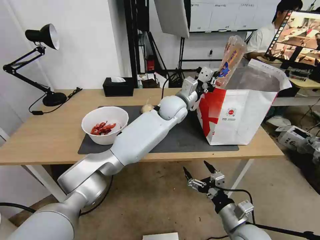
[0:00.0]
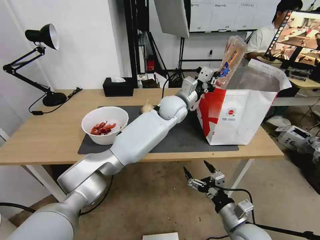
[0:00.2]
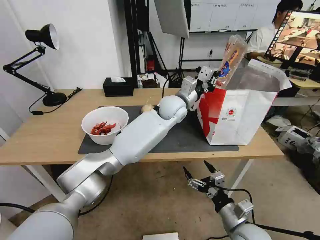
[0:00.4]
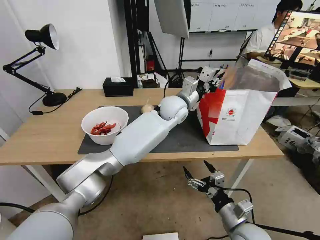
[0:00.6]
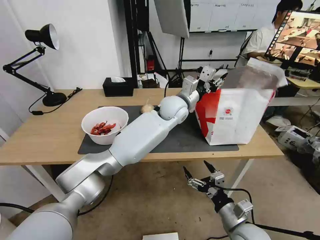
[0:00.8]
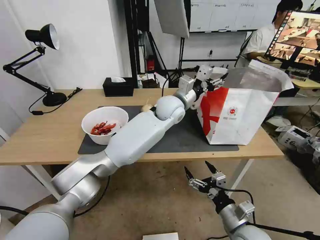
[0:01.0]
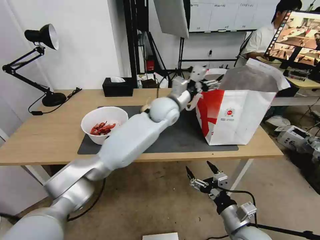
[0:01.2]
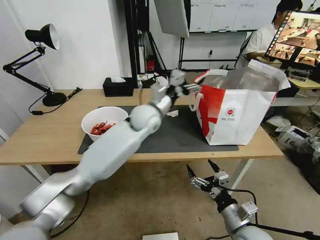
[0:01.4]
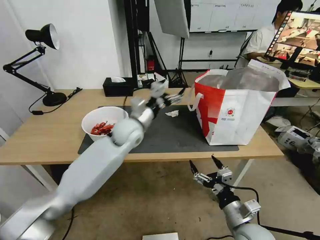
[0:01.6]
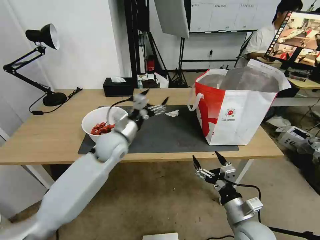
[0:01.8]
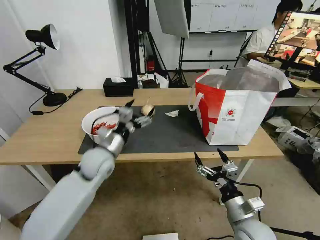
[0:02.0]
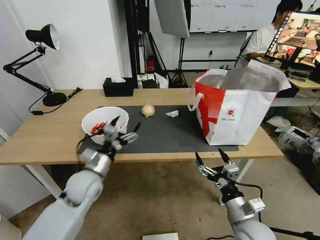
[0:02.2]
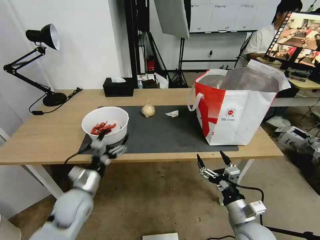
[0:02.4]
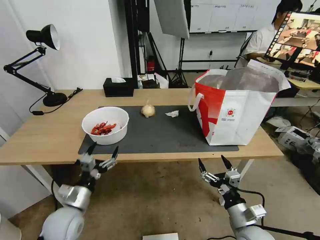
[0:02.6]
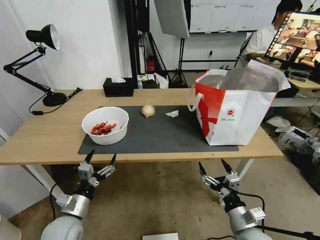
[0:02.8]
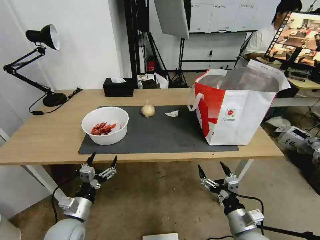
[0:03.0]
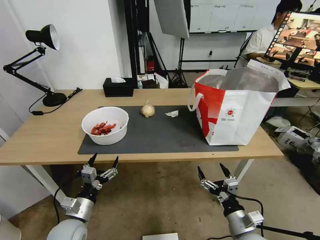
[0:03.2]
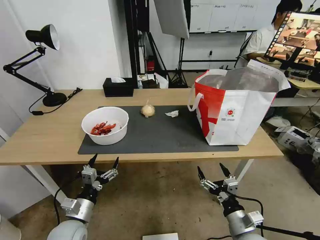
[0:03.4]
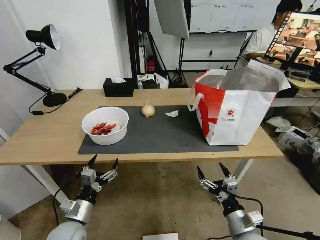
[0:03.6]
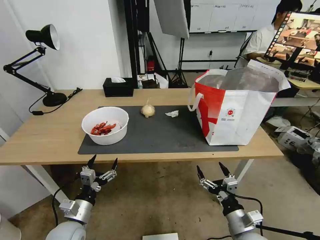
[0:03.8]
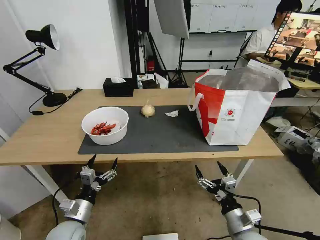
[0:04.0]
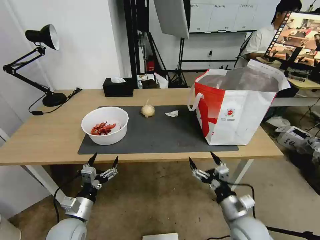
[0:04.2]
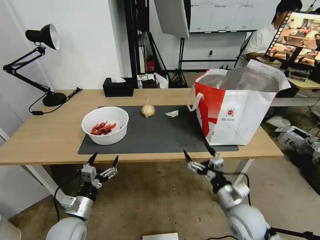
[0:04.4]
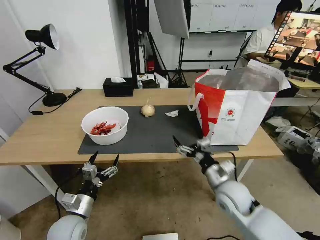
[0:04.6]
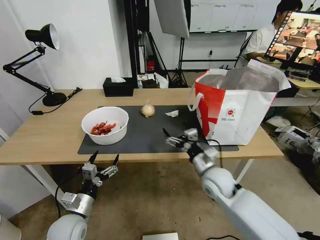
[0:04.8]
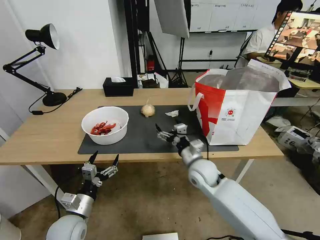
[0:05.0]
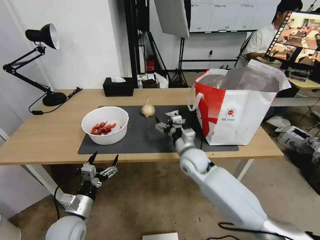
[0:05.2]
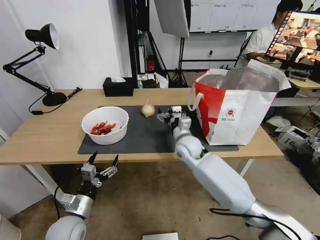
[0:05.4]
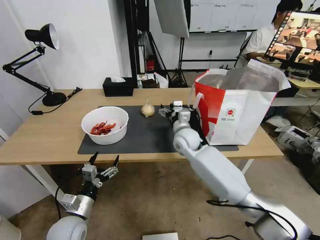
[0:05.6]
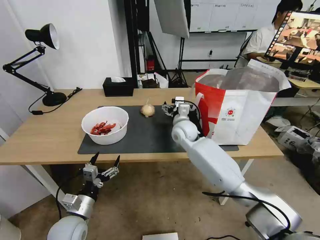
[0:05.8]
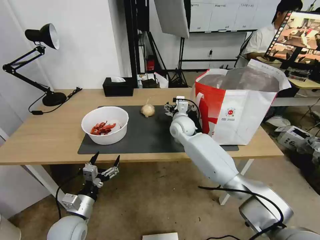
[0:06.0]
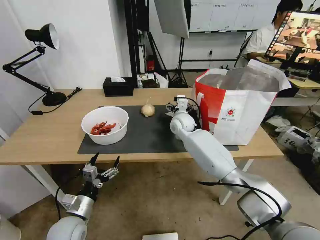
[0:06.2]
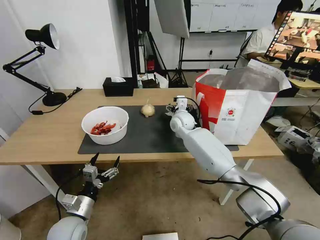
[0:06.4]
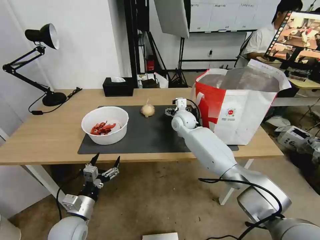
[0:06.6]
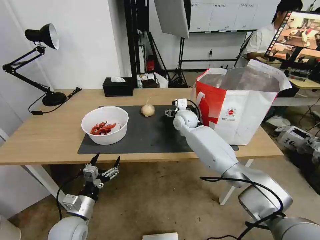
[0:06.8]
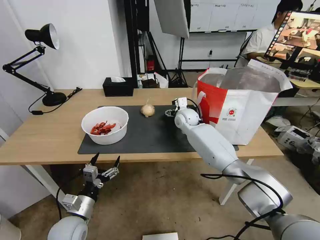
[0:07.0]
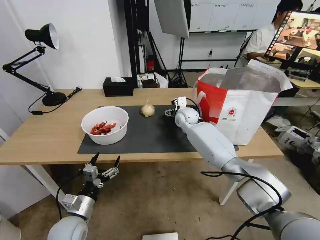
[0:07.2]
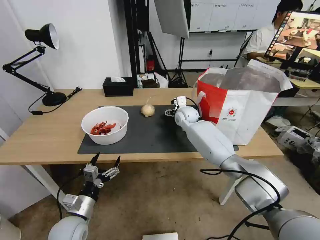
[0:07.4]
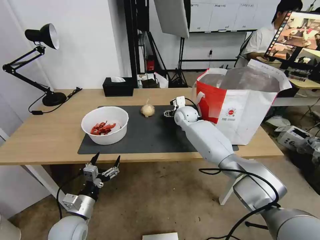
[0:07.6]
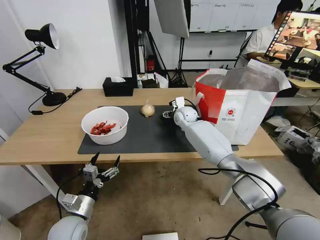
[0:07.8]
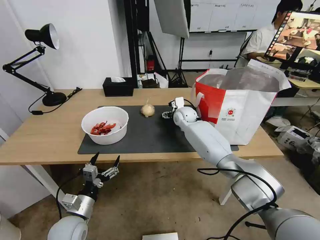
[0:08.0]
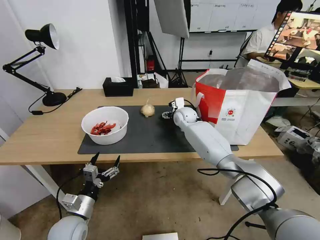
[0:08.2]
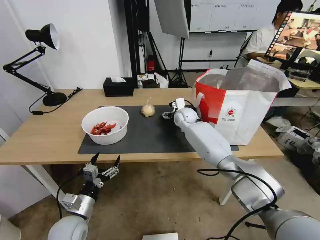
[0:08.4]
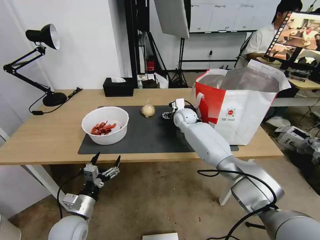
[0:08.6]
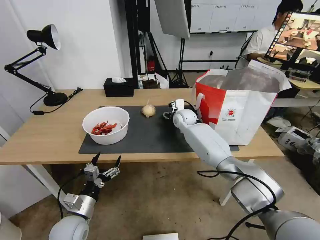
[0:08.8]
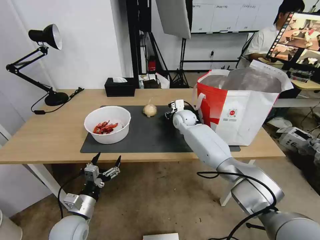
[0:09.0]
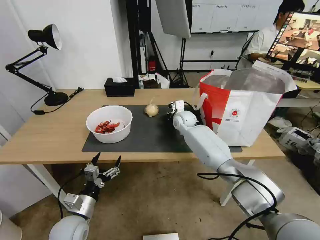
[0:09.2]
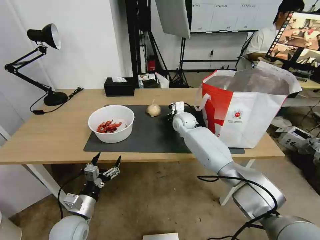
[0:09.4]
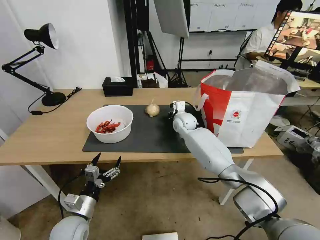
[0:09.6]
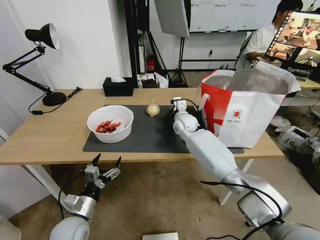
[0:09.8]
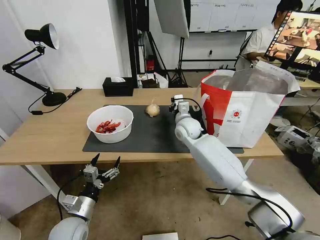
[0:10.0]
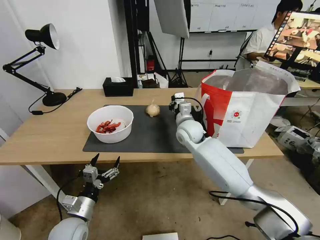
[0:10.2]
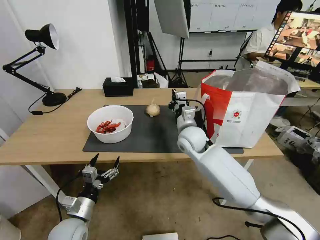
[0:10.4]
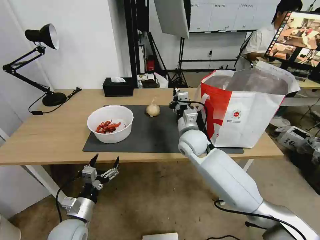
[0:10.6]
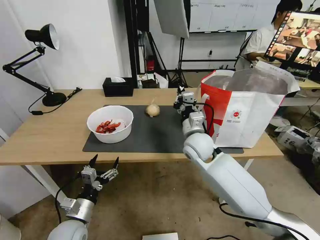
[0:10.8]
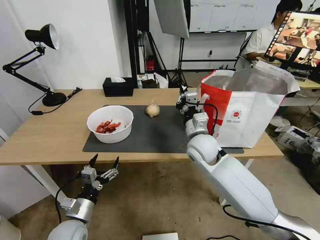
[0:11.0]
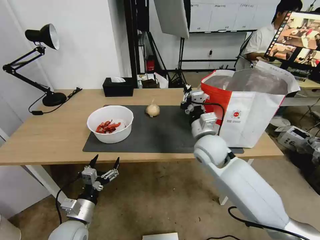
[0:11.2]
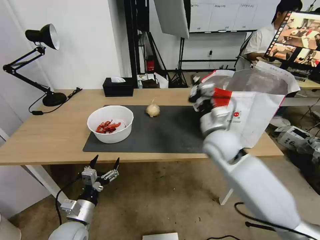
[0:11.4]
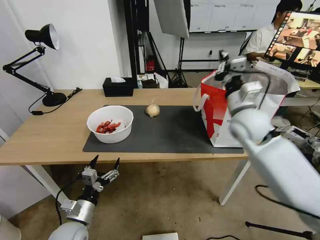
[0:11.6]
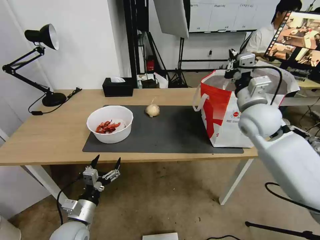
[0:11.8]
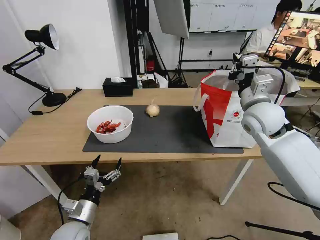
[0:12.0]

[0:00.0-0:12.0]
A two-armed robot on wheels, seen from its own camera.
Task of the whole recording: Pick up the trash from the table and place it into the takeout bag.
0:00.0 to 0:01.6: The left gripper is displaced to the left and backward by roughly 15 cm, and opens its fingers.
0:01.6 to 0:03.0: The left gripper heads backward, downward and to the left, covering approximately 35 cm.
0:03.0 to 0:04.4: The right gripper goes roughly 10 cm forward.
0:04.4 to 0:06.0: The right gripper travels forward and to the left by about 35 cm.
0:06.0 to 0:07.6: The right gripper shifts roughly 5 cm forward.
0:07.6 to 0:09.0: The right gripper closes up.
0:09.0 to 0:10.4: The right gripper is displaced backward by about 15 cm, and closes up.
0:10.4 to 0:12.0: The right gripper moves to the right and upward, roughly 20 cm.

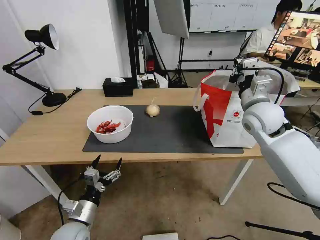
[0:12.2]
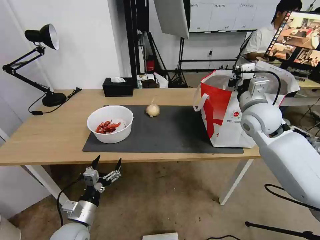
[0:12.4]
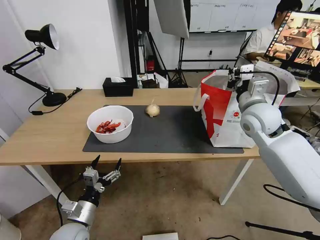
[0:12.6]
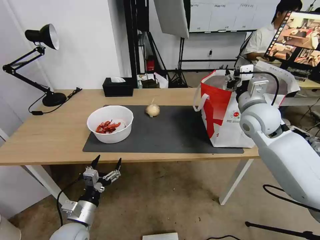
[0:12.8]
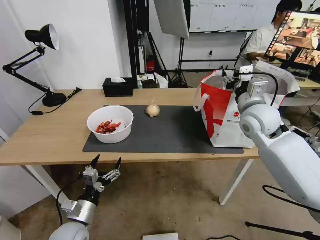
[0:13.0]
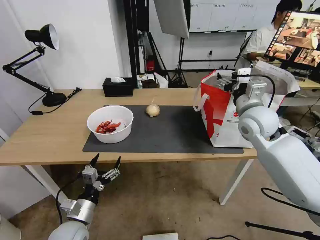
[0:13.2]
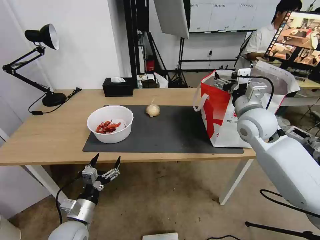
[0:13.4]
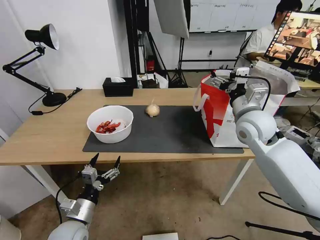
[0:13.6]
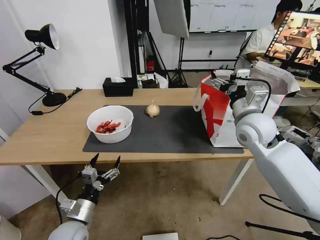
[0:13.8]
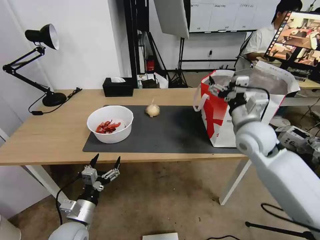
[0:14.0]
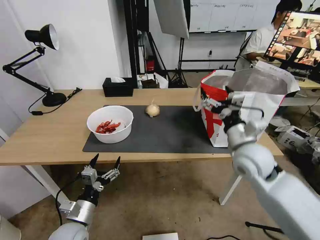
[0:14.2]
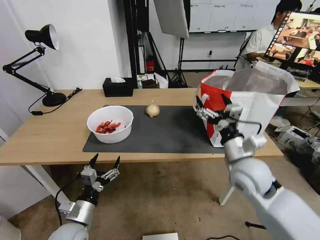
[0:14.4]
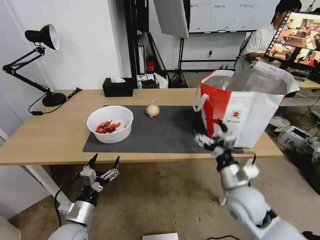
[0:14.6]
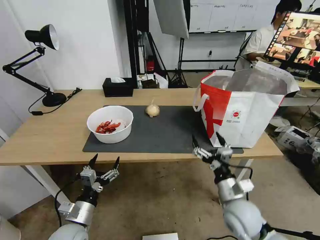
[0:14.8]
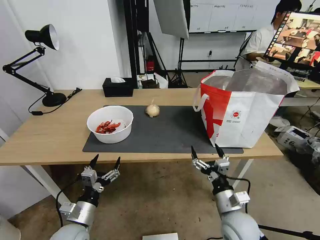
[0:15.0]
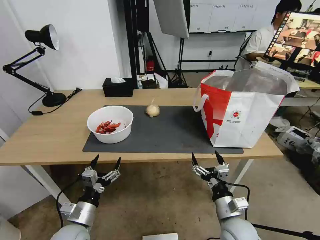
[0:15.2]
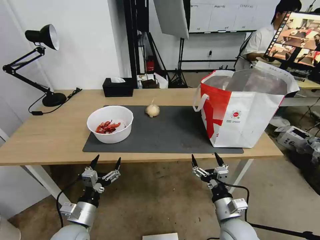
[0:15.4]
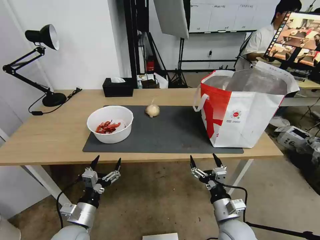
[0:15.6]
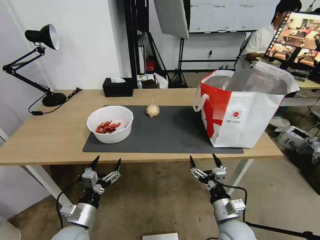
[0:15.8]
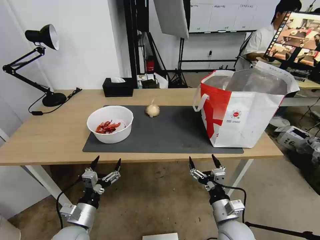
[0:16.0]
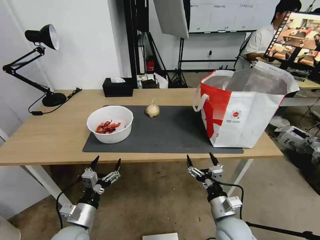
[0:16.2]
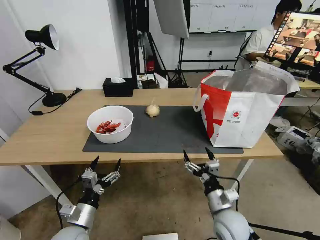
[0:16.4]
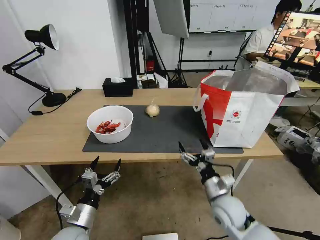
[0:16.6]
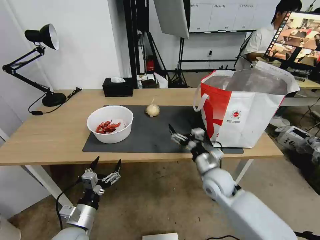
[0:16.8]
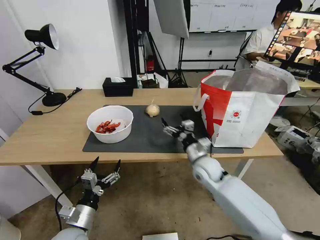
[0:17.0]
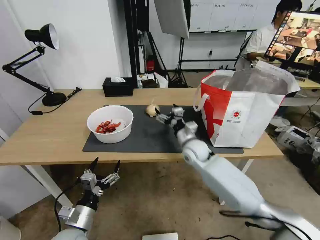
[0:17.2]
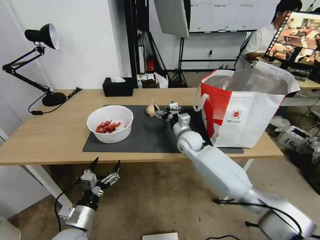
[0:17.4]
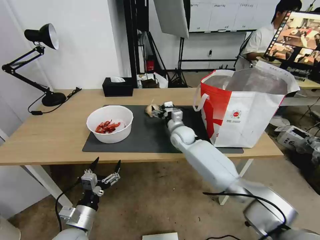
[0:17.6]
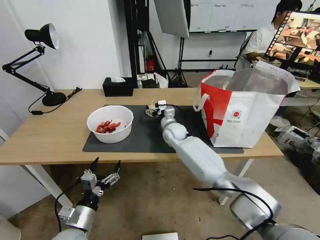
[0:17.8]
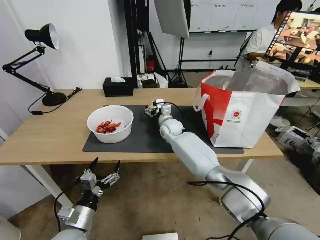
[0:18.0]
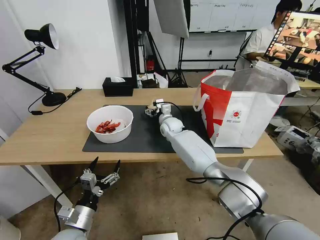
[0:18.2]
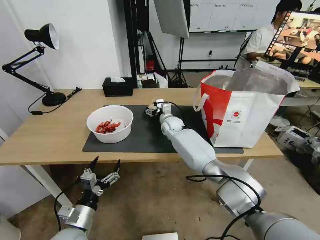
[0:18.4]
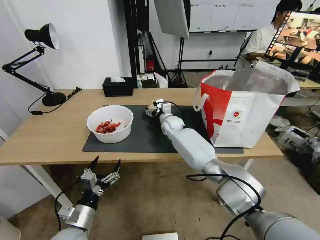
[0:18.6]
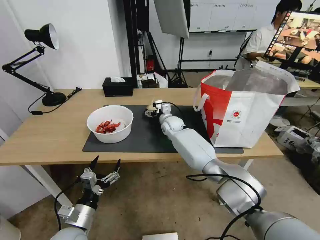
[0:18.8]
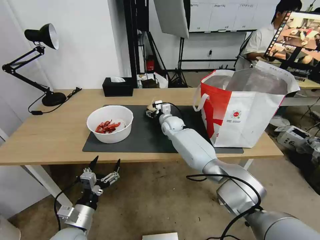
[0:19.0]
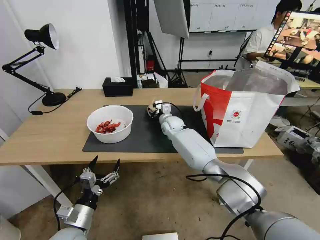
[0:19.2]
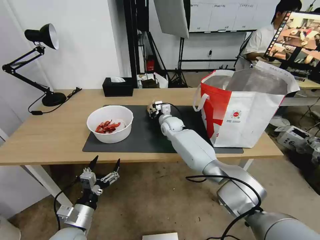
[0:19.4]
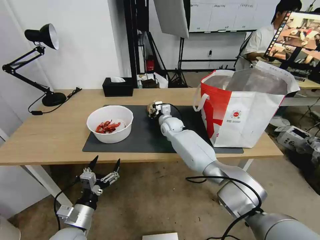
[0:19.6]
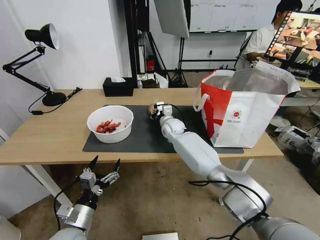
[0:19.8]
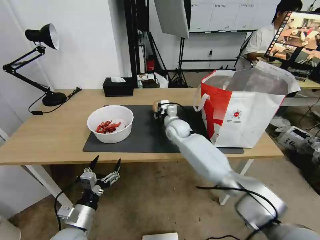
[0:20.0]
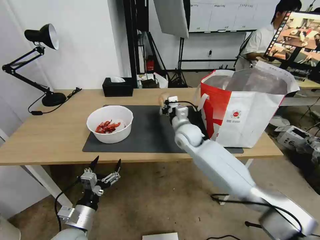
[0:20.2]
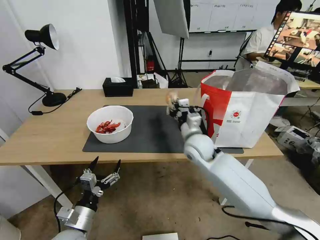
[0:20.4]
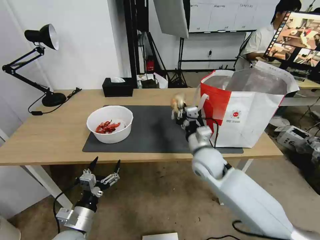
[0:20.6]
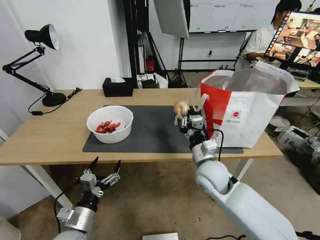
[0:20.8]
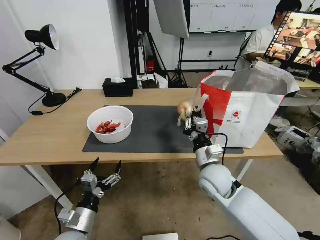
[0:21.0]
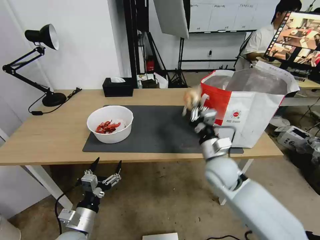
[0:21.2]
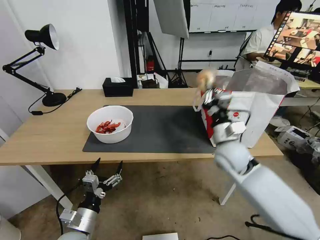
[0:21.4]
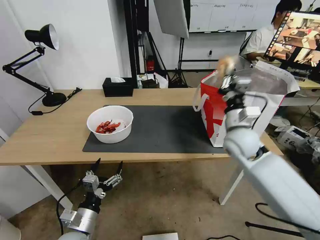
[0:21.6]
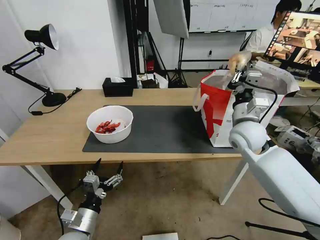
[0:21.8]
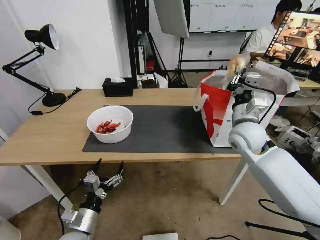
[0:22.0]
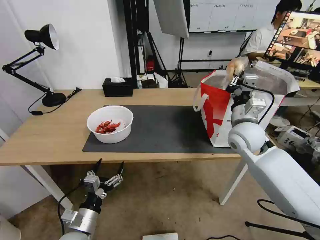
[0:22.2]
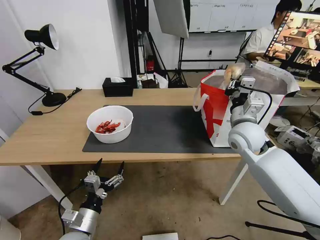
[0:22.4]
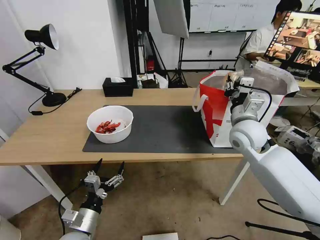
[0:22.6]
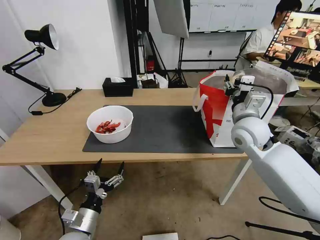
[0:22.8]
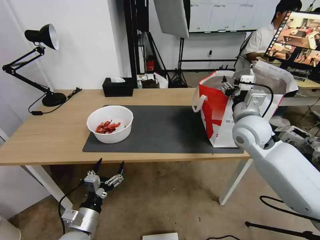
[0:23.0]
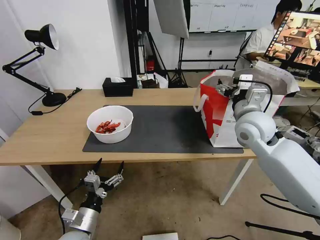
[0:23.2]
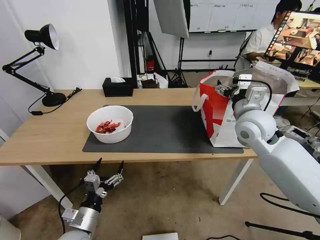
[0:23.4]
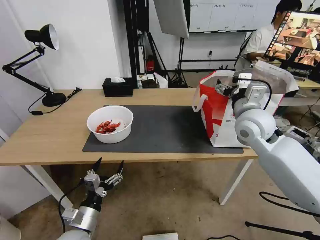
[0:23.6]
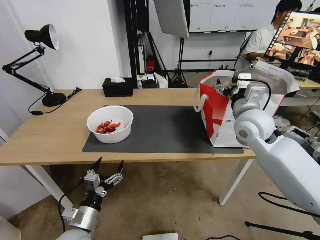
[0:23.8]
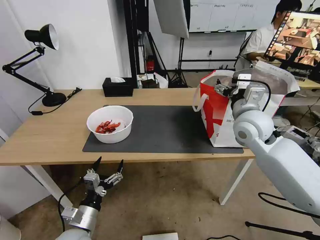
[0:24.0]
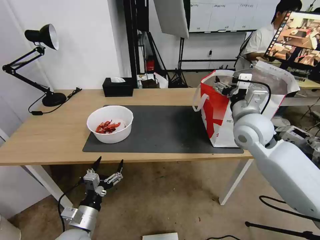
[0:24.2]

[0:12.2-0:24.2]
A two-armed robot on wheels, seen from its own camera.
Task of the whole recording: Pick up the trash from the table and place it into the takeout bag.
0:12.2 to 0:13.8: The right gripper opens its fingers.
0:13.8 to 0:15.2: The right gripper goes roughly 30 cm downward and backward.
0:15.2 to 0:16.6: The right gripper travels forward by roughly 5 cm.
0:16.6 to 0:18.2: The right gripper goes roughly 35 cm forward and to the left.
0:18.2 to 0:19.8: The right gripper closes its fingers.
0:19.8 to 0:21.2: The right gripper travels backward and to the right by approximately 25 cm.
0:21.2 to 0:22.6: The right gripper moves upward, to the right and forward, some 15 cm.
0:22.6 to 0:24.2: The right gripper opens its fingers.
